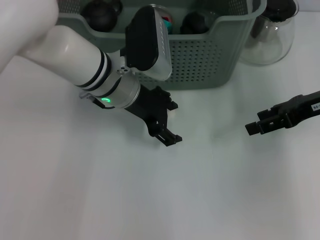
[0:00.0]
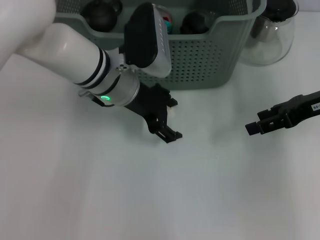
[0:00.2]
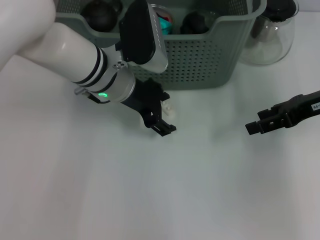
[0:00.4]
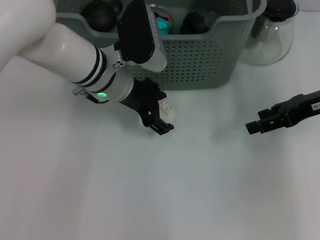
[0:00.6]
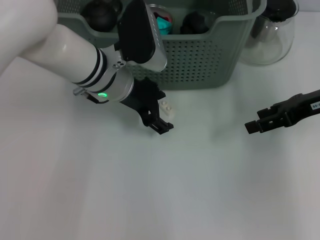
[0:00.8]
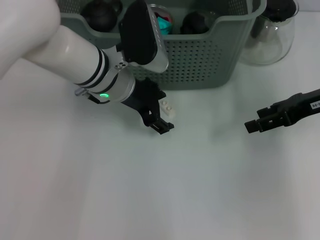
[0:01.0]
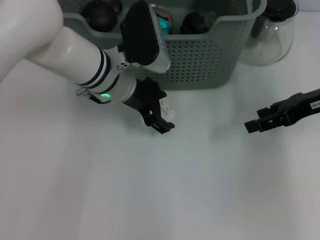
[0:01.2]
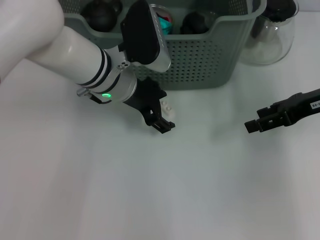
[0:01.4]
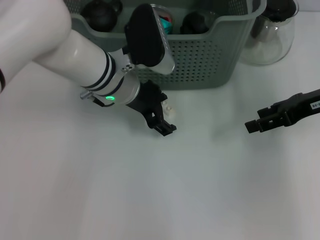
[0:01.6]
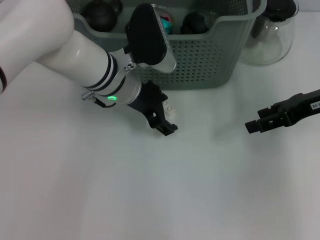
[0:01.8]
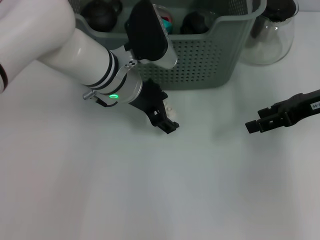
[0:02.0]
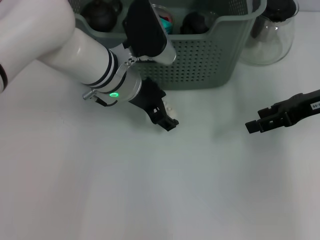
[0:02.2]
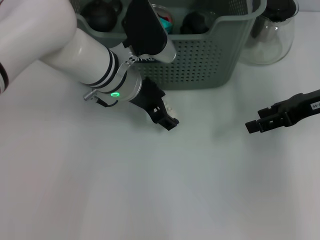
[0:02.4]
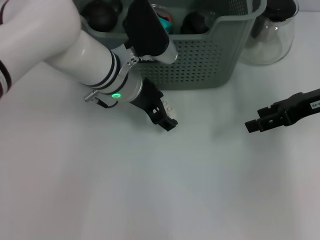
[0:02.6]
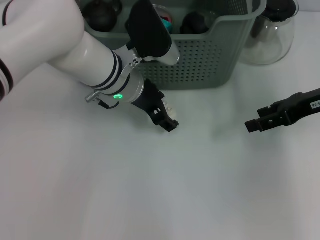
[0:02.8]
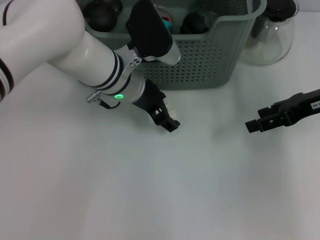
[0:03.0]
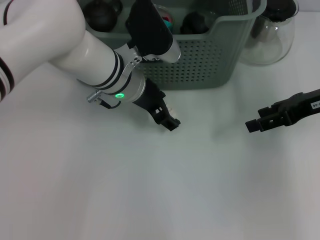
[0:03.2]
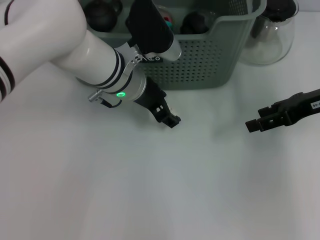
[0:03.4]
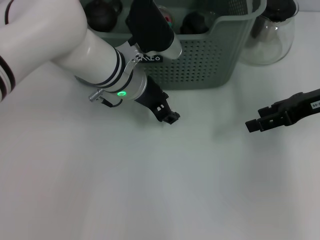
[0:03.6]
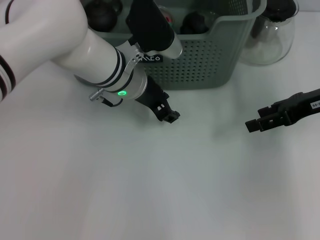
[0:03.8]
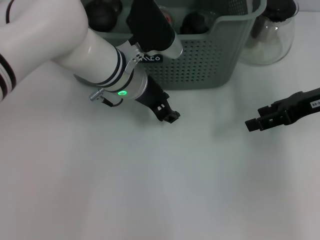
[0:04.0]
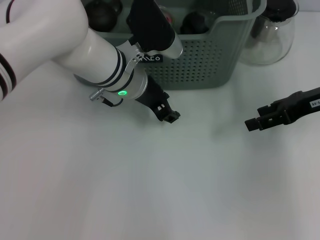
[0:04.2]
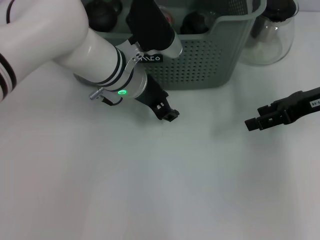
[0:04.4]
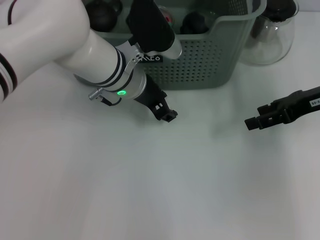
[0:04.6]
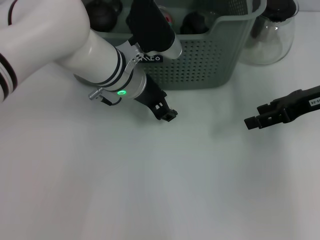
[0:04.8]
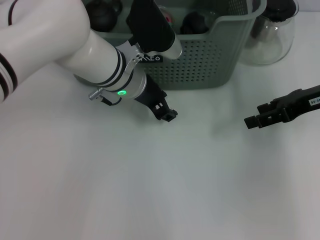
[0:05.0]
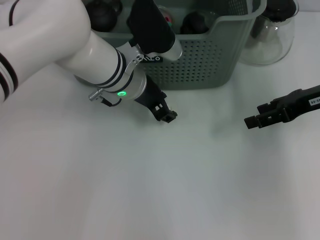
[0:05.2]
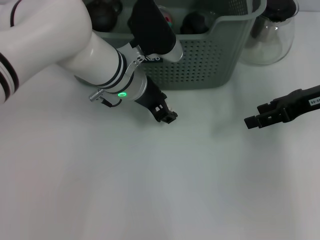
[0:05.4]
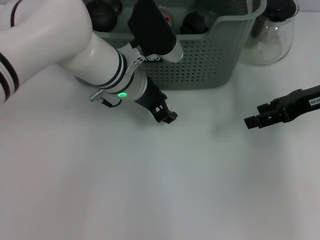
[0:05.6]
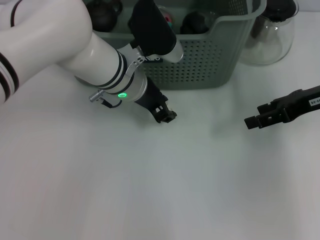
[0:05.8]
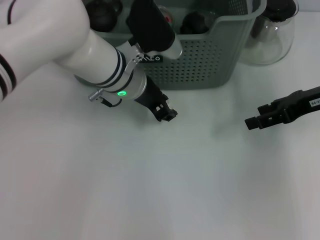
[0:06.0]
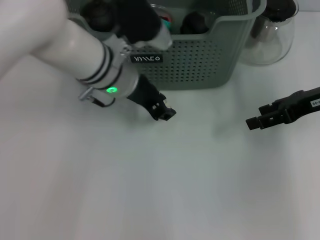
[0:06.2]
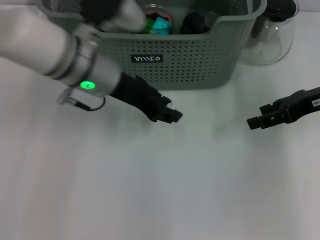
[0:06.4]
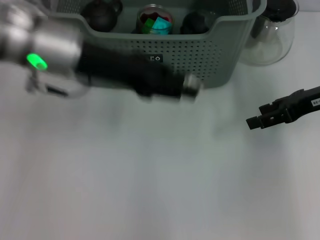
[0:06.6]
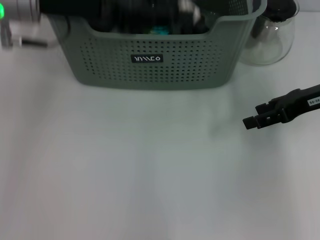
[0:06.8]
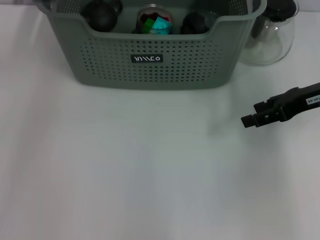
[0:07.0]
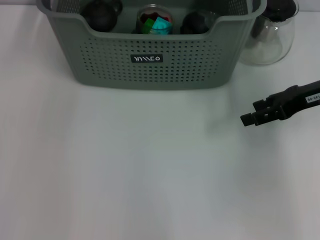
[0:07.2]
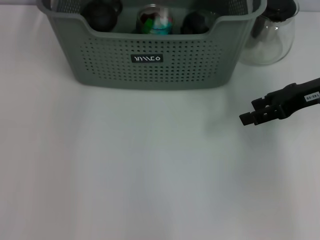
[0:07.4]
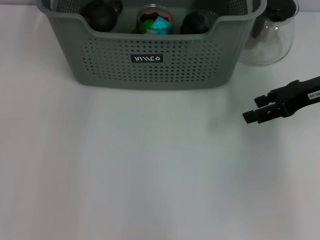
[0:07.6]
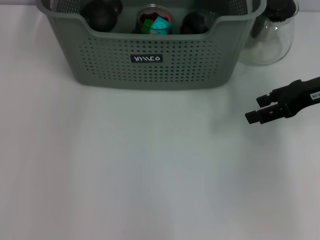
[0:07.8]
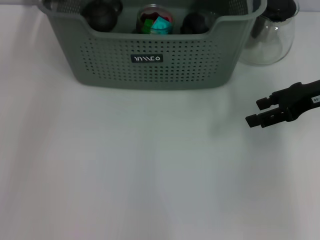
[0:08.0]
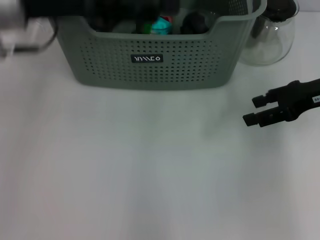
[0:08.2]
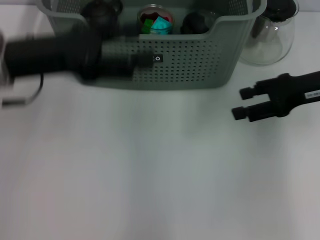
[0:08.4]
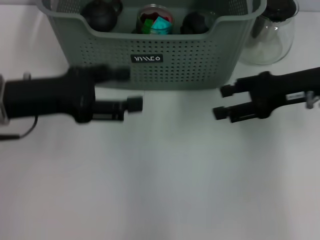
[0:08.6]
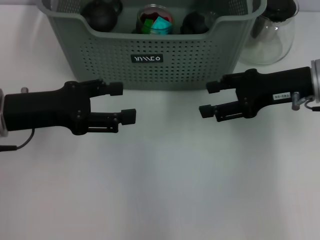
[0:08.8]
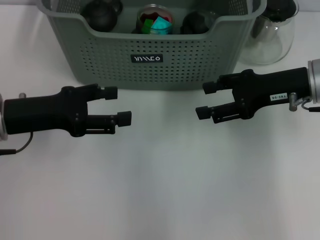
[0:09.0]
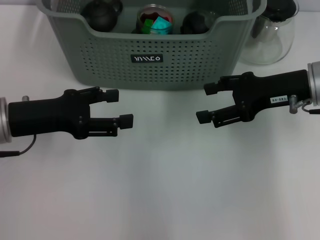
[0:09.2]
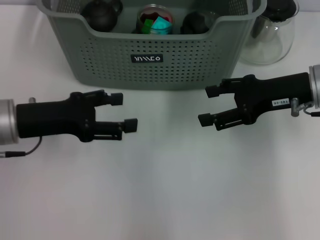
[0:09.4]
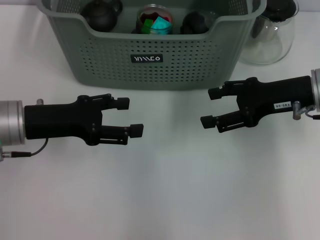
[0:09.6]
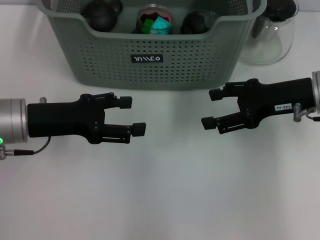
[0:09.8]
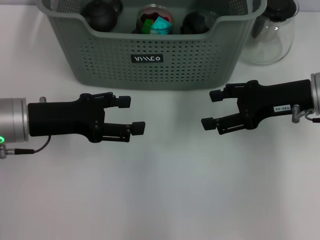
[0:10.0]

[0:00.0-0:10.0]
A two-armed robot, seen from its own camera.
Task of the whole recording: pick up the teacup on the table and place it into the storage bin, pick up the block on the table and place it into the storage bin.
Step, 0:00.0 to 0:05.8: Grasp the white block with left gripper.
Step, 0:06.0 to 0:07.4: Place the white block in the storage box with left gripper.
0:00.0 to 0:02.8: The grippers move only a little.
0:02.8 to 0:05.8: Neither gripper changes place.
0:05.8 to 0:07.2: The left gripper is displaced upward and to the left by about 15 cm.
0:07.2 to 0:08.6: The left gripper shifts roughly 20 cm backward, downward and to the left, and opens its fingers.
0:08.6 to 0:10.0: There are only small adjustments of the grippers.
